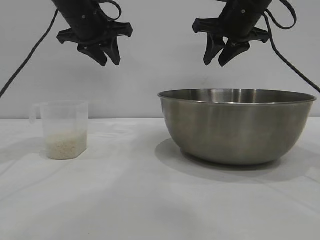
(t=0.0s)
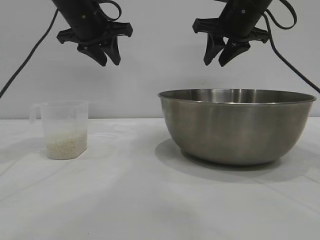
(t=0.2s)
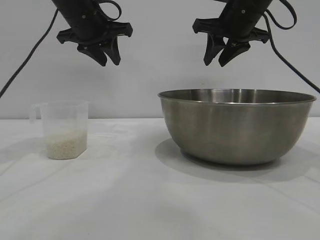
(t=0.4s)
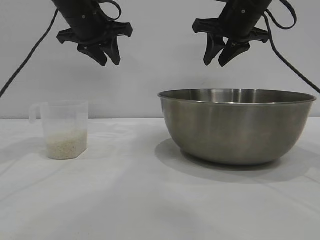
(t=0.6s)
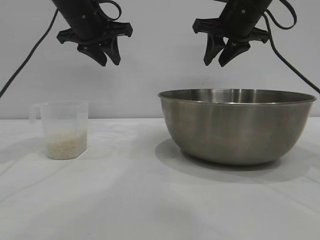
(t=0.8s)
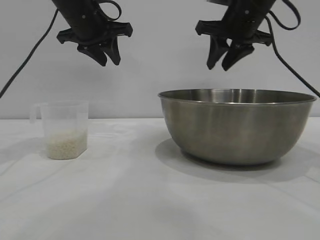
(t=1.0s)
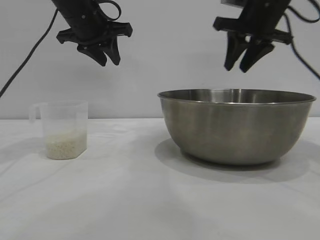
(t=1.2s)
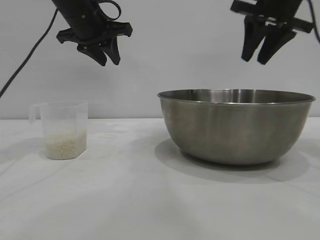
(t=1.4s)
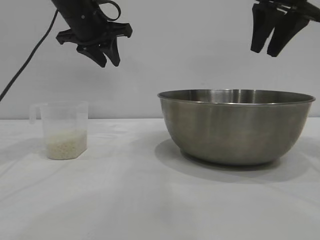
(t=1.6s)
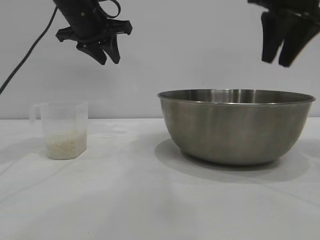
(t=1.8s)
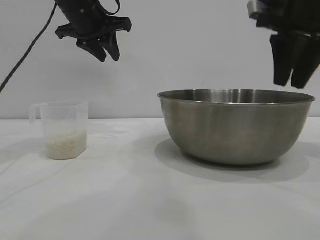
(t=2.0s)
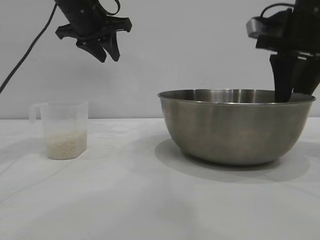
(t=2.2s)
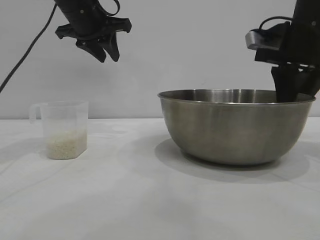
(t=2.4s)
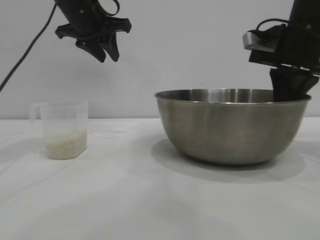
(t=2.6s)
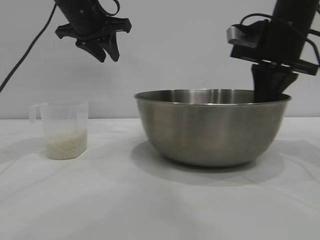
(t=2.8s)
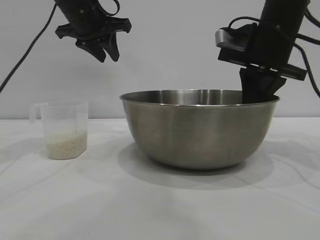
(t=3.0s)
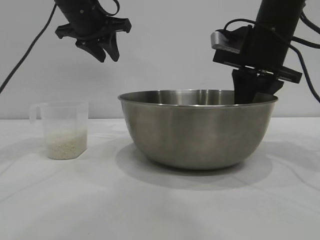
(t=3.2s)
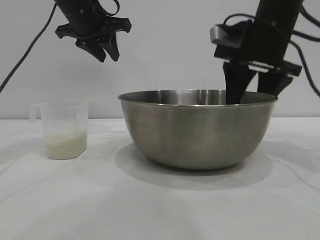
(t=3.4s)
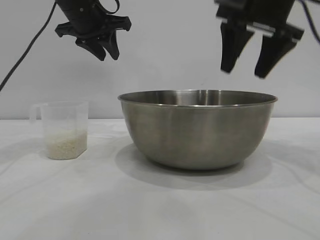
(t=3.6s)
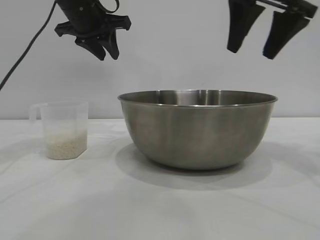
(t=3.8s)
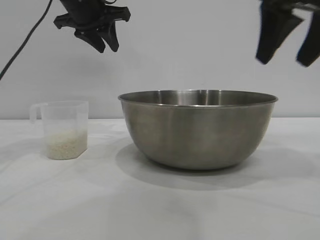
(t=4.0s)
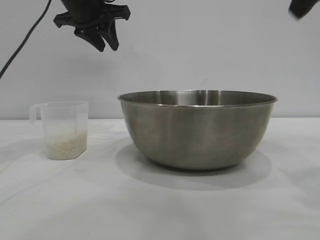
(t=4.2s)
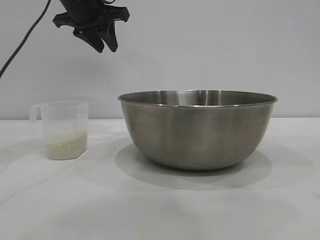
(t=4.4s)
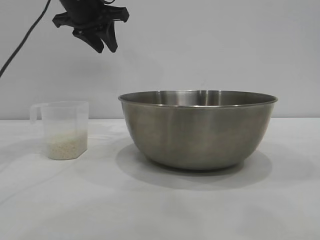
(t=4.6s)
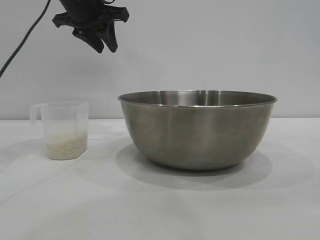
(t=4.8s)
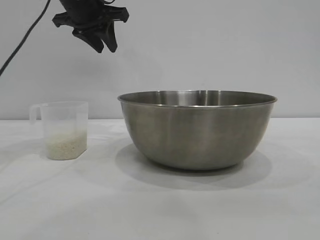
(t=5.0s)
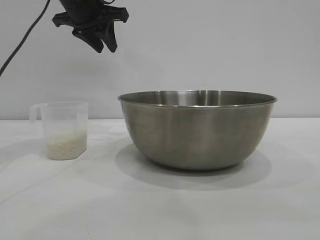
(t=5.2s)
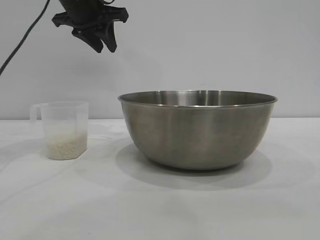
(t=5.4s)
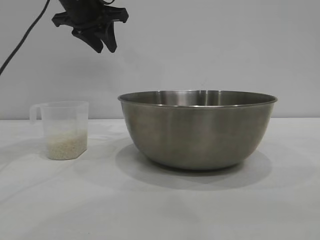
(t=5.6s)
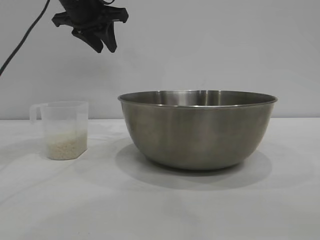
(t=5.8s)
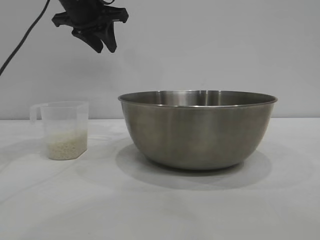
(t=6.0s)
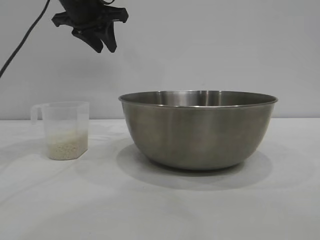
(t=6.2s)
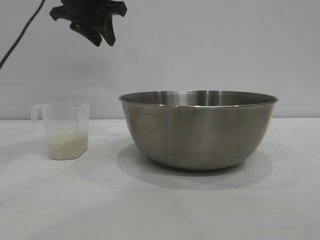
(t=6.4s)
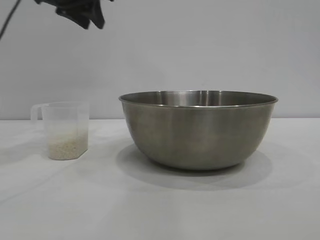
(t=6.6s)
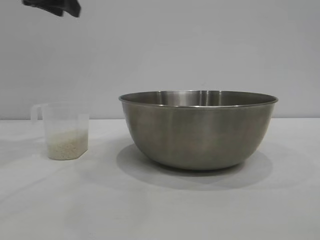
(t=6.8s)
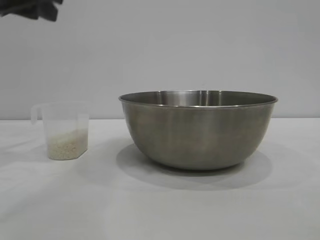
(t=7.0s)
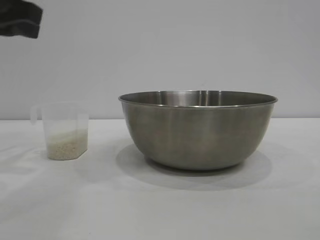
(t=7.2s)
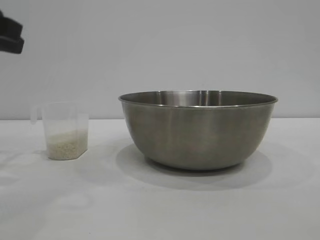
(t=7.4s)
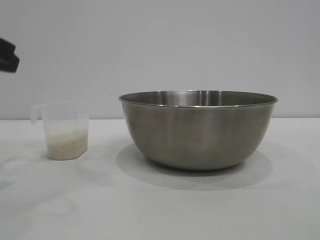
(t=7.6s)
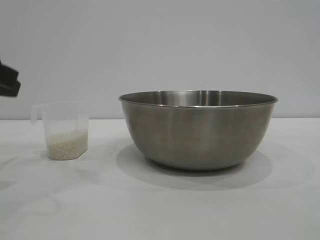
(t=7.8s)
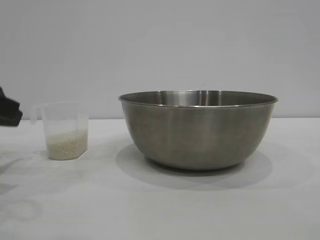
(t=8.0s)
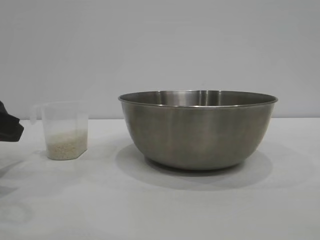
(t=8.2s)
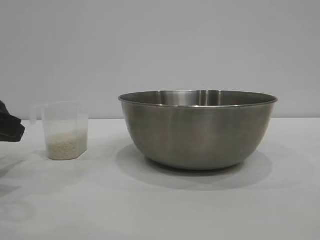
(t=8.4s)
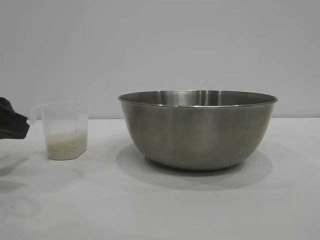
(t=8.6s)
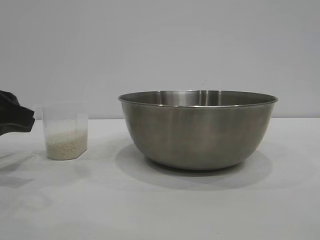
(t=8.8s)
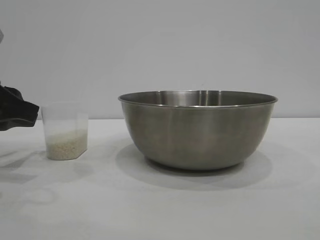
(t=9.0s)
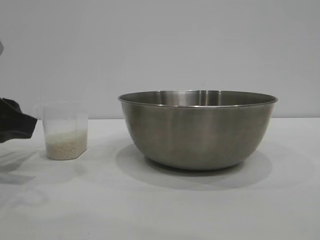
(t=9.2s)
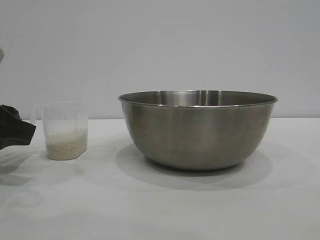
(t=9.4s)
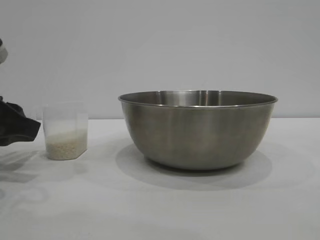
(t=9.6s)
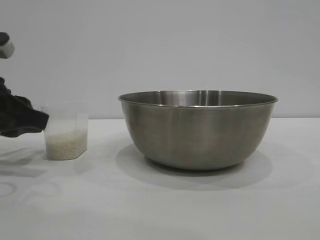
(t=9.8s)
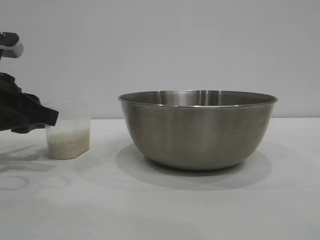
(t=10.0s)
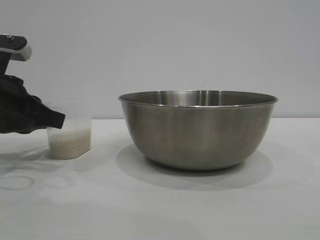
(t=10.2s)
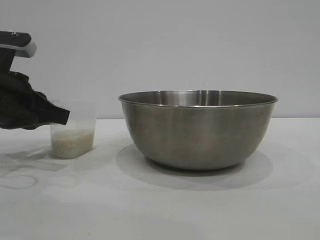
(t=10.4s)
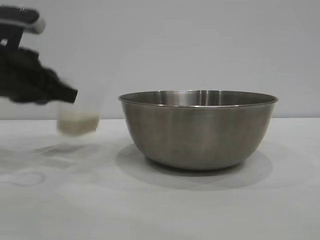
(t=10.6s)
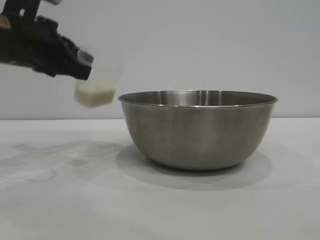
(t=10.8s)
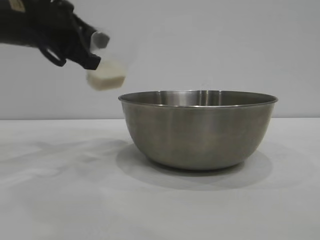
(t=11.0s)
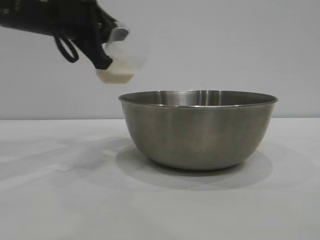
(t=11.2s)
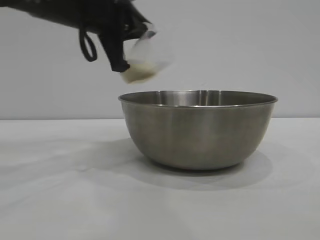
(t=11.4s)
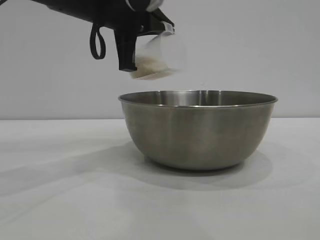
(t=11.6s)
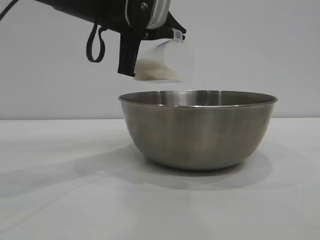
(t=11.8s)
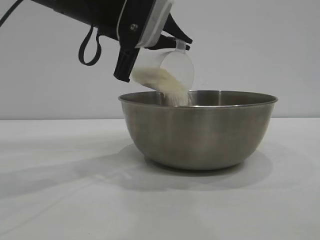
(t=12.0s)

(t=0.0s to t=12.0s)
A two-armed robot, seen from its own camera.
Task of the whole recording: the right gripper grasp the rice container and place it in the center of the table, the left gripper grasp the rice scoop and pour the rice into the rice container.
Step, t=0.0s - t=3.6s: Move the bowl to the center of view with the right gripper.
Step, t=3.8s - t=10.6s: Pick up the cup with rice in it with the left gripper.

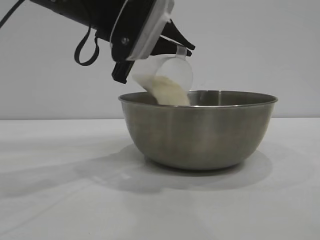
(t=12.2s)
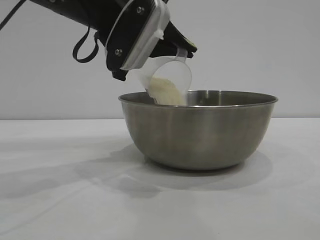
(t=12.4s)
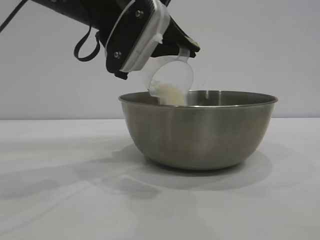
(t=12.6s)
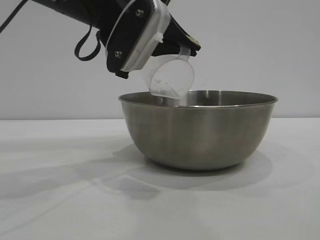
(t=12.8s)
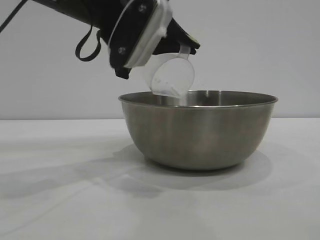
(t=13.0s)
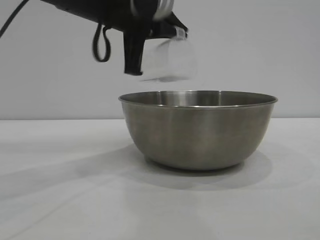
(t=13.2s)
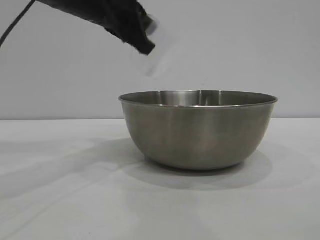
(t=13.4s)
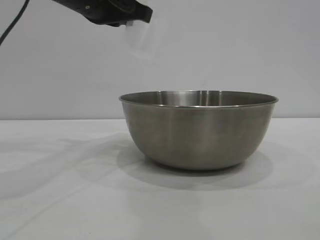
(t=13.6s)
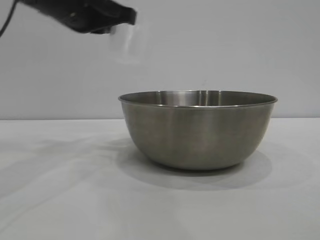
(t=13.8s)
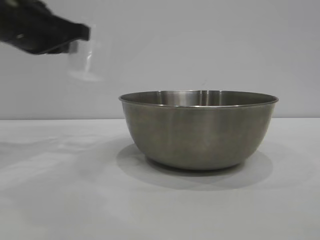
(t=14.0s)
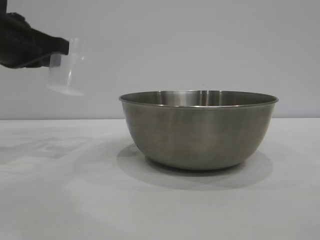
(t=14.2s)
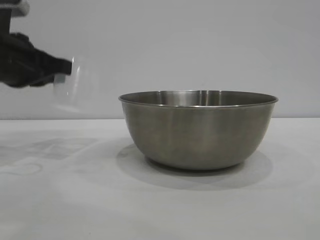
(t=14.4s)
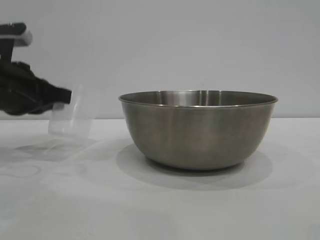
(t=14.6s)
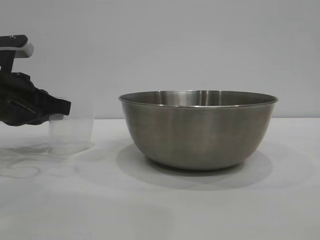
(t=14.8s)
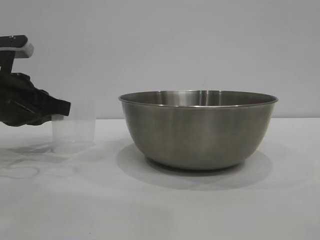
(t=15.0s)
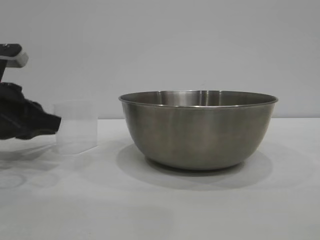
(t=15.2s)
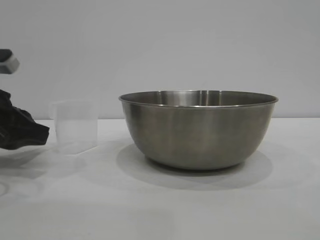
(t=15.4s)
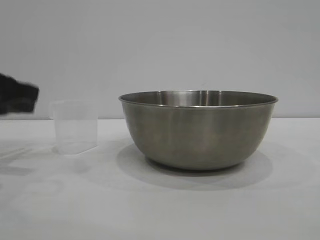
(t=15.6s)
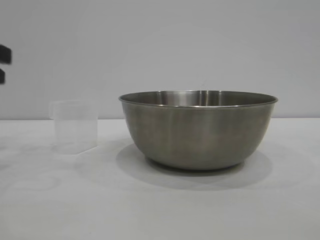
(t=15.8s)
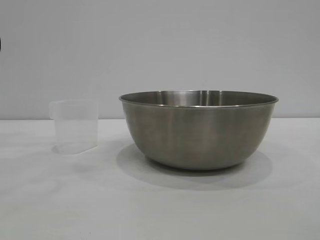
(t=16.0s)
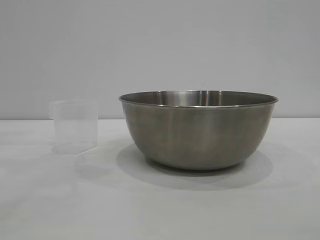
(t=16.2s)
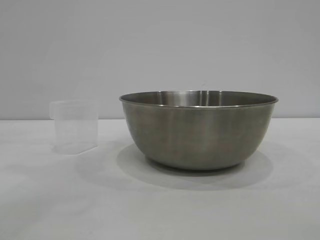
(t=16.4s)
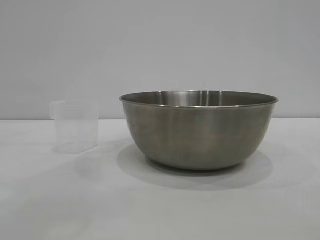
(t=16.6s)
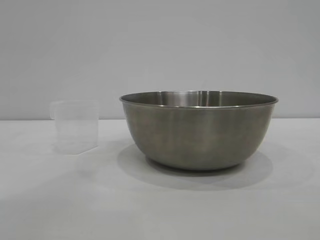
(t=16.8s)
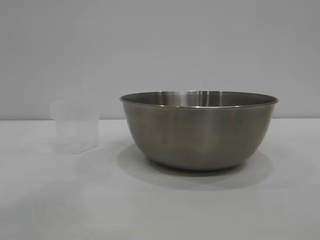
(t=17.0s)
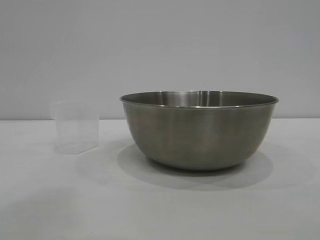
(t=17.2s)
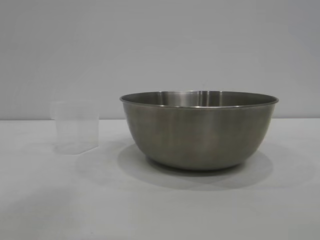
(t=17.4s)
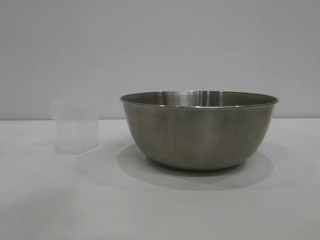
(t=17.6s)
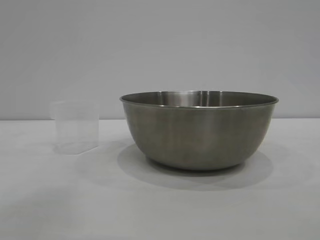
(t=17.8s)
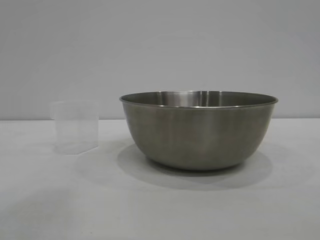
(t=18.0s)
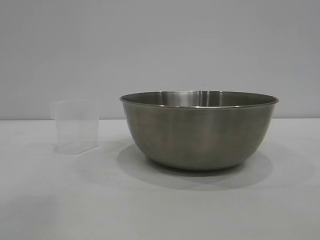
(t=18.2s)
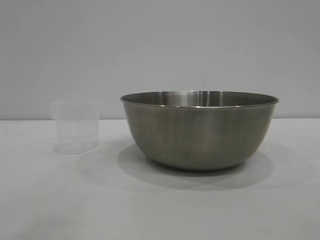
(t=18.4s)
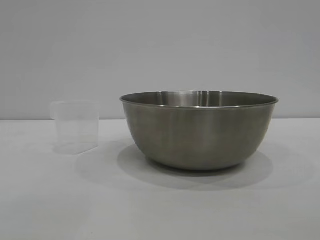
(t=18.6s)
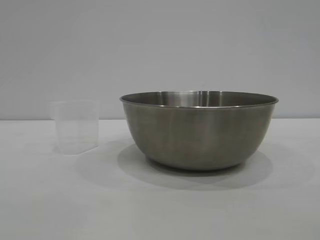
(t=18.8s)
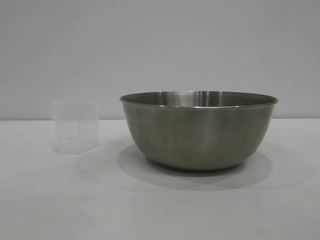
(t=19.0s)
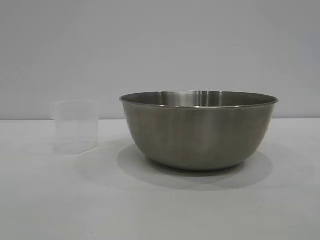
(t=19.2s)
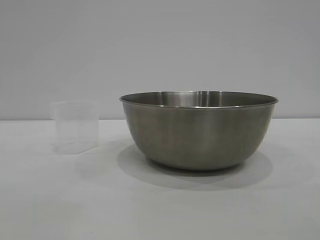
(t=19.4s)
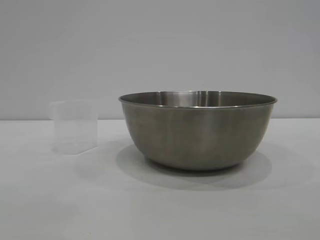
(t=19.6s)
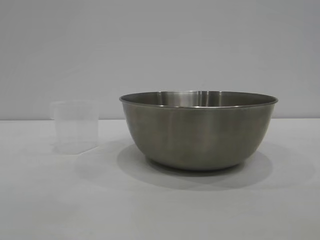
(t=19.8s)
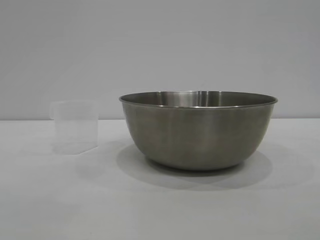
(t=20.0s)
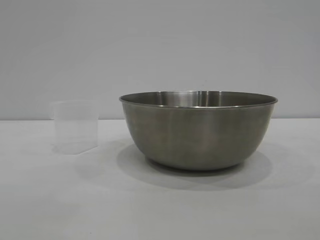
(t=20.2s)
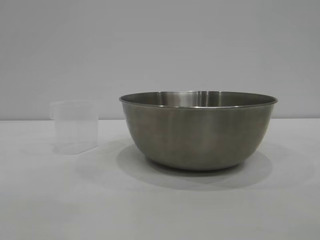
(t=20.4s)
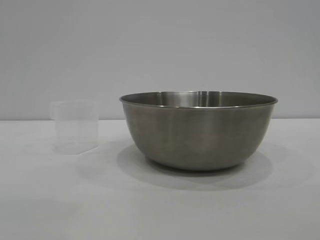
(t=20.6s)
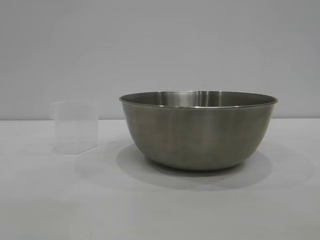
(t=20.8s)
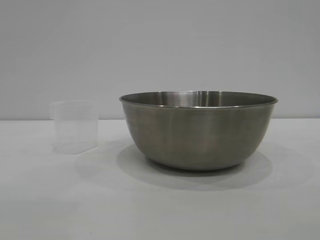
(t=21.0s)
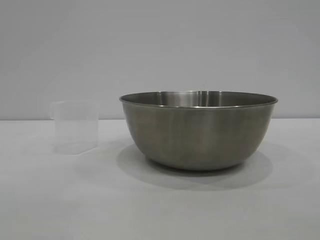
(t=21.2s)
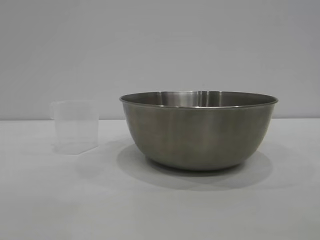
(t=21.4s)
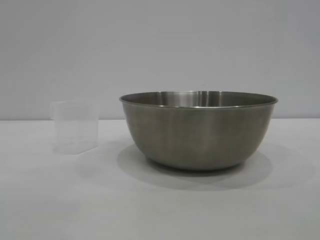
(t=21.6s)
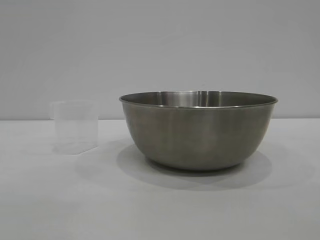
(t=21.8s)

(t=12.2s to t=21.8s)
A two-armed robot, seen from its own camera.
Task of the whole recording: the right gripper grasp the rice container and place it in the center of the table, the left gripper grasp the rice scoop and pour the rice into the rice container.
Step, t=13.6s - t=15.4s: Place the cup on the table with the left gripper.
